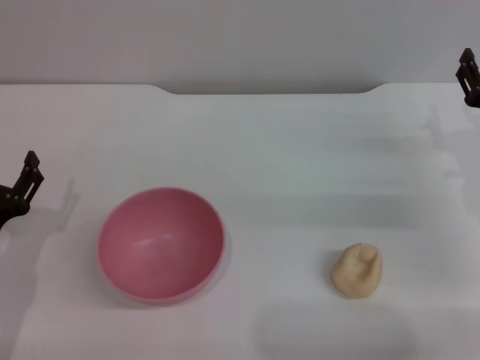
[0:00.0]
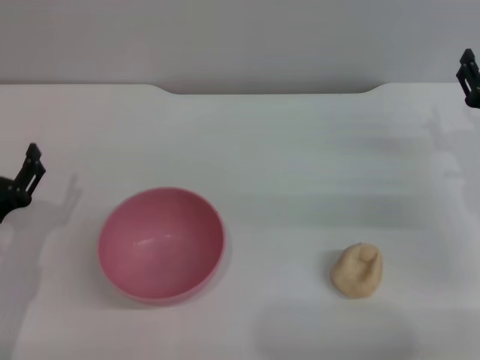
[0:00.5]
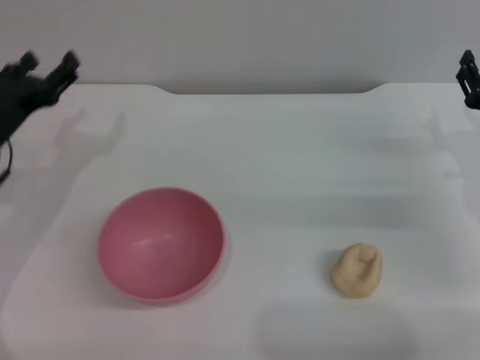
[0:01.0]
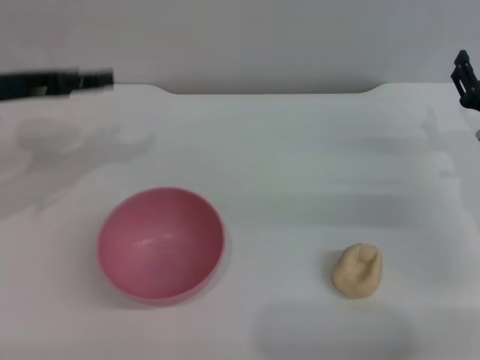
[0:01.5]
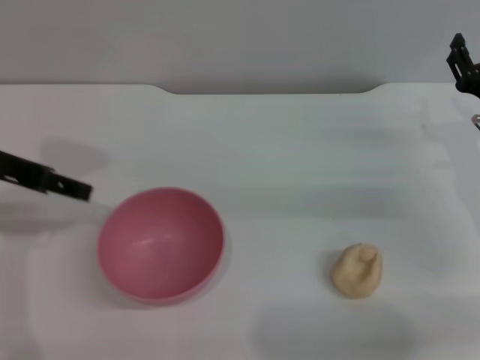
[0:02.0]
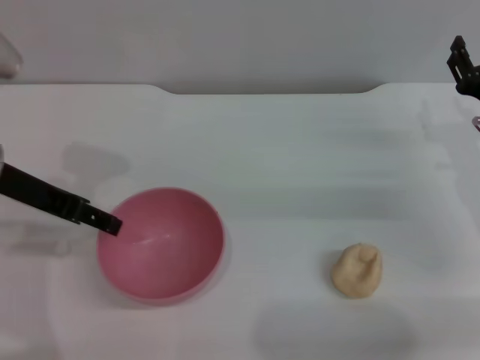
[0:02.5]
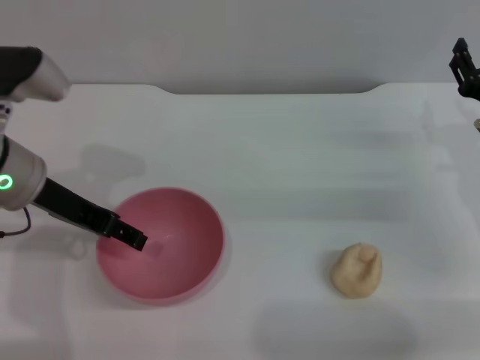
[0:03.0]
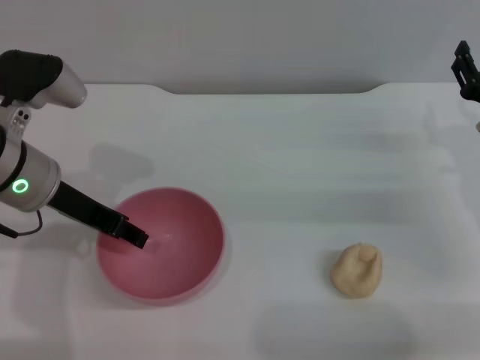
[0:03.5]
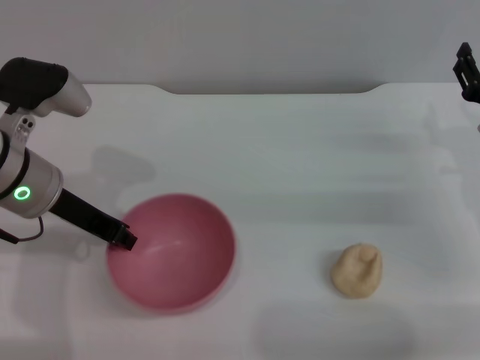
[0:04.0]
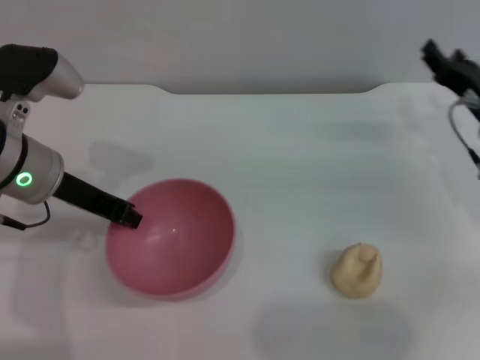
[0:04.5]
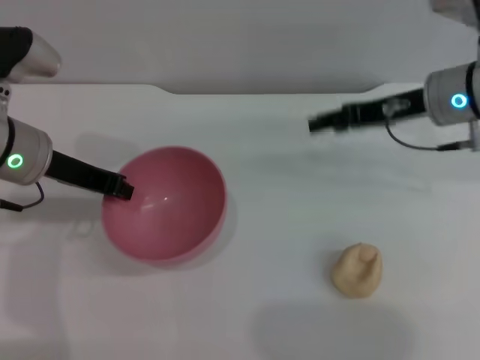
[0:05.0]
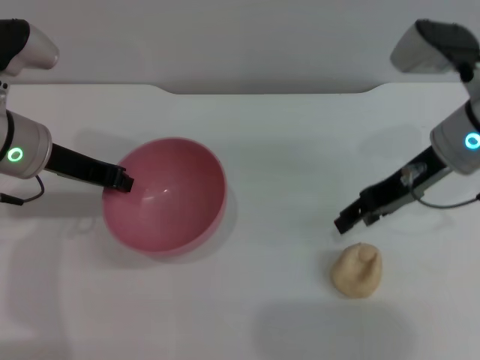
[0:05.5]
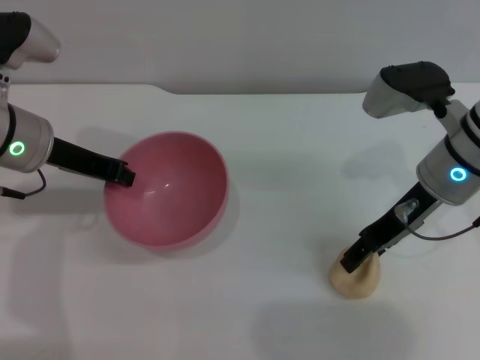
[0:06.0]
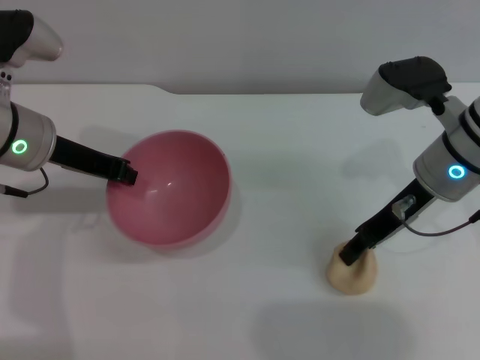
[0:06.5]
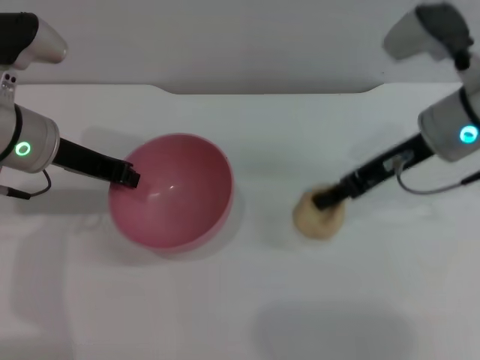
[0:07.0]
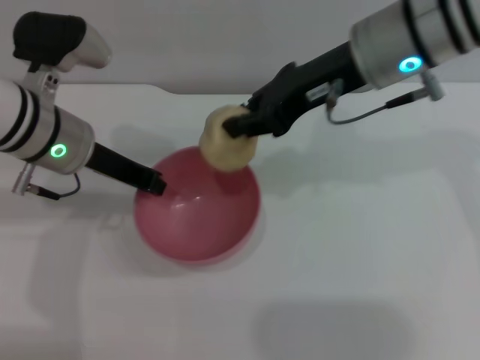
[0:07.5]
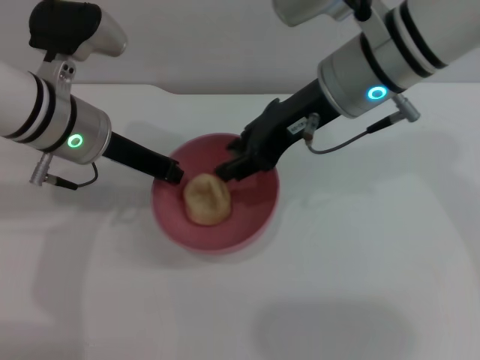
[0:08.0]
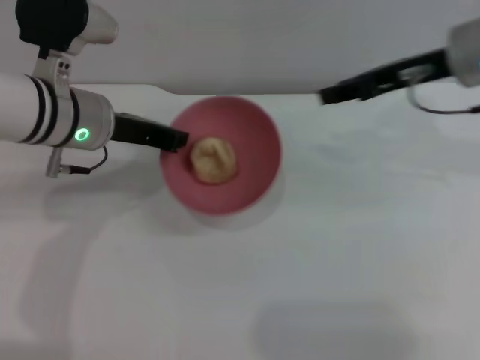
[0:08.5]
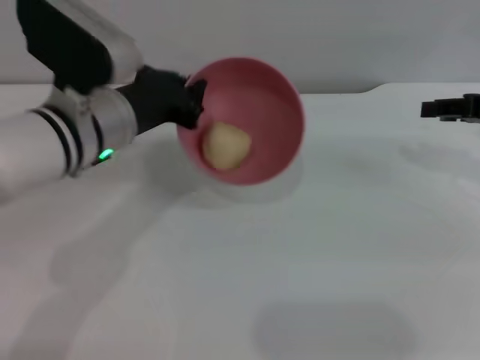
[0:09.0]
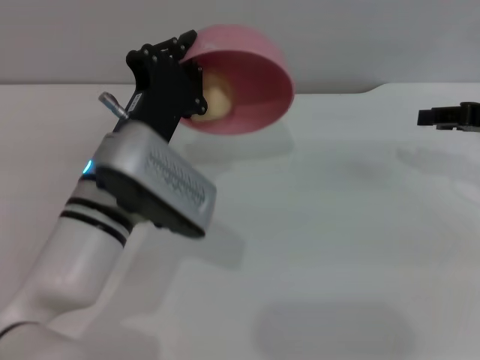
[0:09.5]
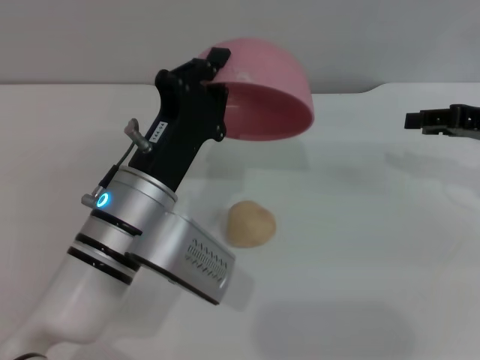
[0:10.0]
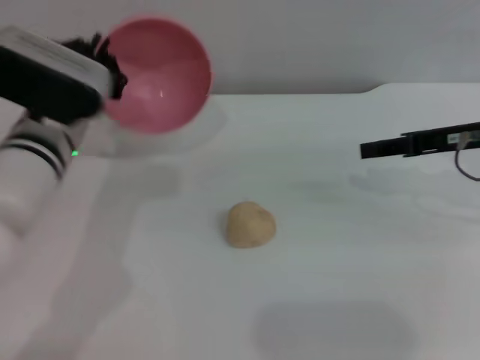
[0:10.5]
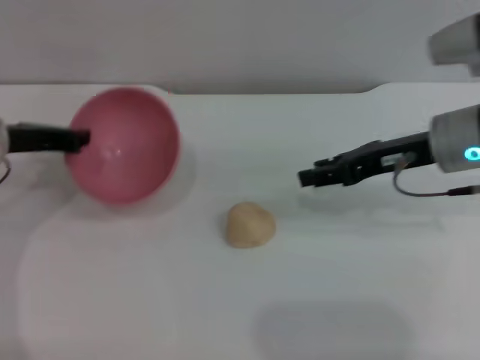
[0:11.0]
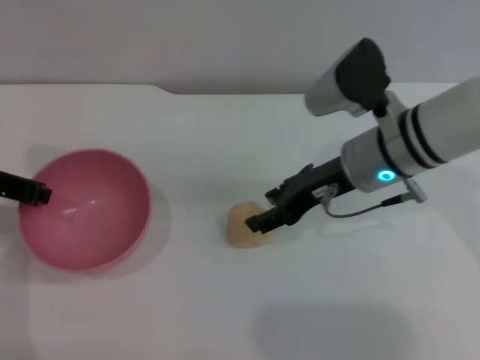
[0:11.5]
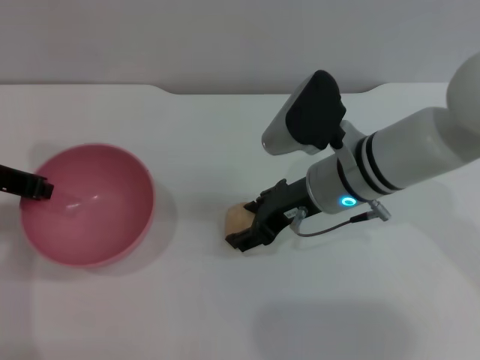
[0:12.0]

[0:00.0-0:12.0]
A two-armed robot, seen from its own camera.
Task of the whole recording: put the egg yolk pastry into the pink bowl and pour it out repeatedly.
Step, 0:00.0 to 0:05.0: Pick up the bowl with the left gripper.
Step, 0:05.5 to 0:07.0: Pick up the egg yolk pastry with the right gripper.
Step, 0:07.5 to 0:08.0: Place the egg yolk pastry into the bowl.
Step, 0:08.5 to 0:09.5: Pour the egg yolk pastry out of bowl.
0:00.0 to 0:02.0: The left gripper travels upward and forward by about 20 cm.
0:02.0 to 0:04.0: The left gripper heads downward and to the right, covering roughly 10 cm, and closes up.
0:04.0 to 0:06.0: The right gripper goes roughly 10 cm to the left and upward. Meanwhile the left gripper closes up.
0:06.0 to 0:08.0: The left gripper moves to the right, roughly 5 cm. Meanwhile the right gripper moves to the left and upward, about 15 cm, and closes its fingers.
0:08.0 to 0:10.0: The right gripper heads to the right, covering roughly 20 cm. The left gripper heads backward, downward and to the right, covering some 15 cm.
0:10.0 to 0:12.0: The right gripper goes about 20 cm to the left, and opens up, while the left gripper moves to the left and upward, roughly 20 cm.

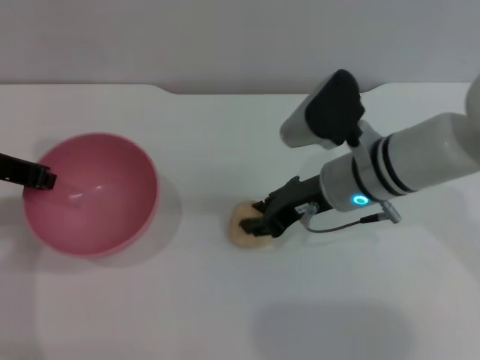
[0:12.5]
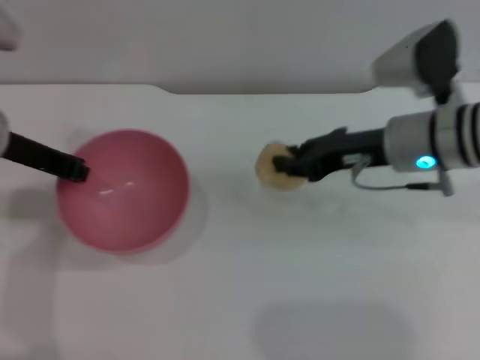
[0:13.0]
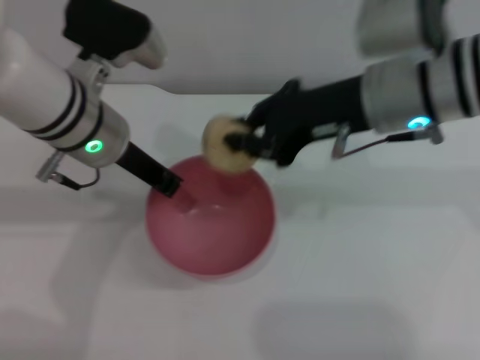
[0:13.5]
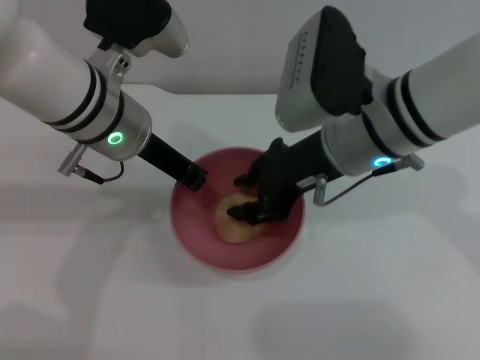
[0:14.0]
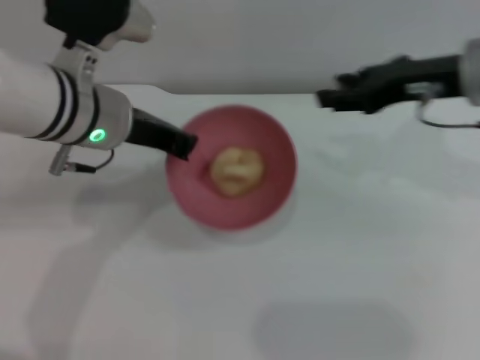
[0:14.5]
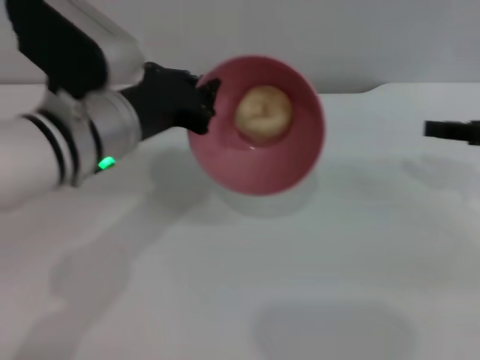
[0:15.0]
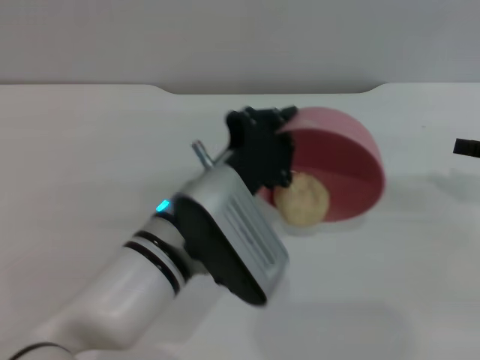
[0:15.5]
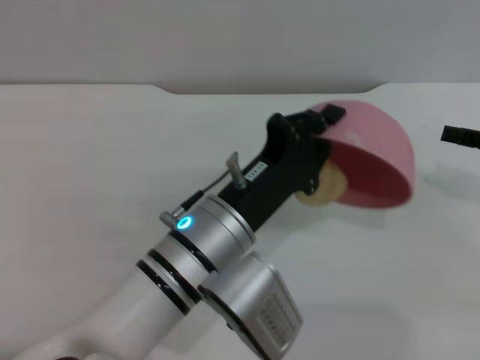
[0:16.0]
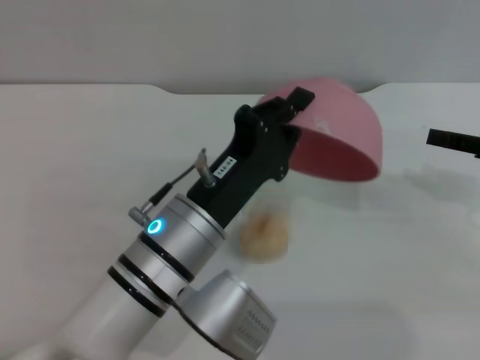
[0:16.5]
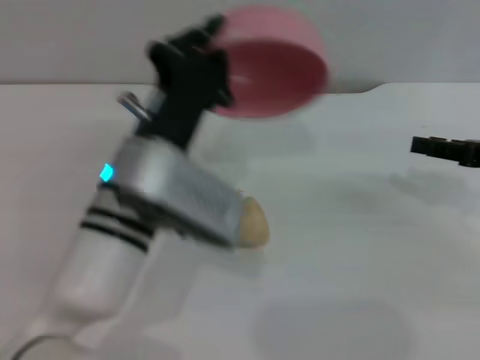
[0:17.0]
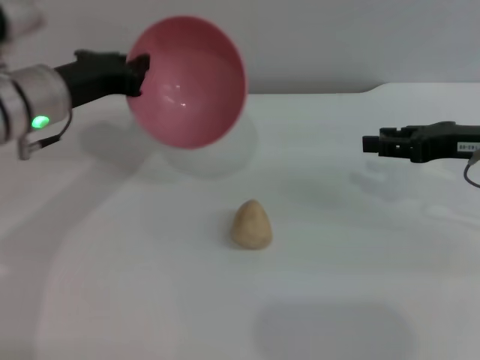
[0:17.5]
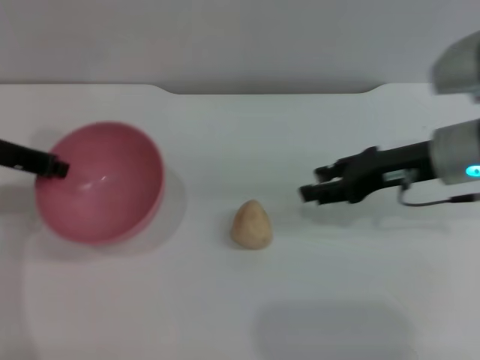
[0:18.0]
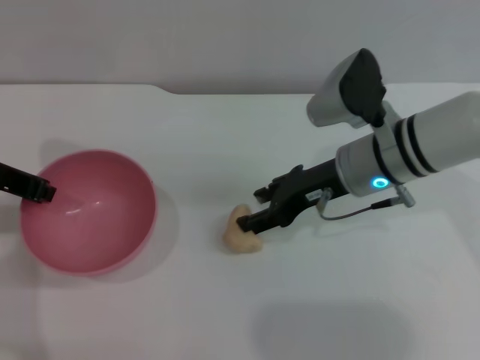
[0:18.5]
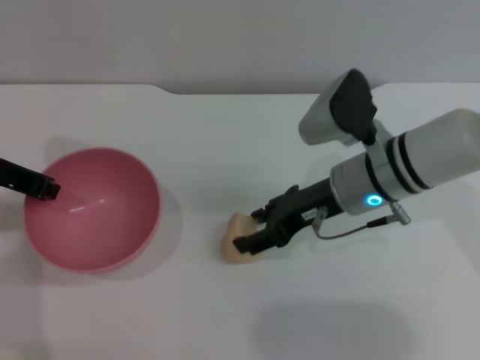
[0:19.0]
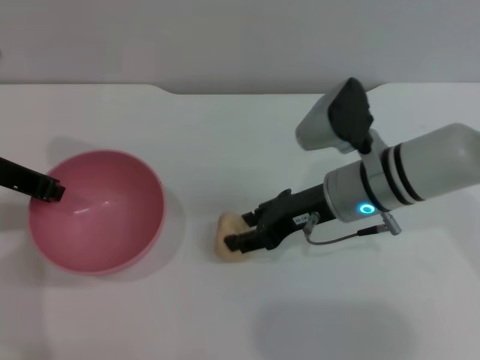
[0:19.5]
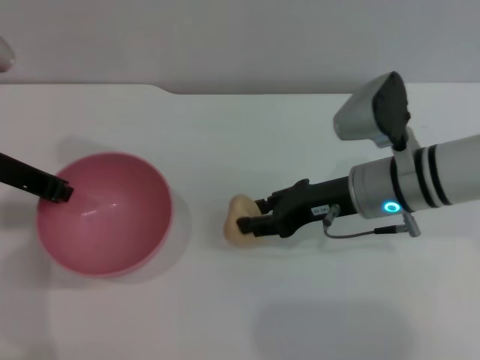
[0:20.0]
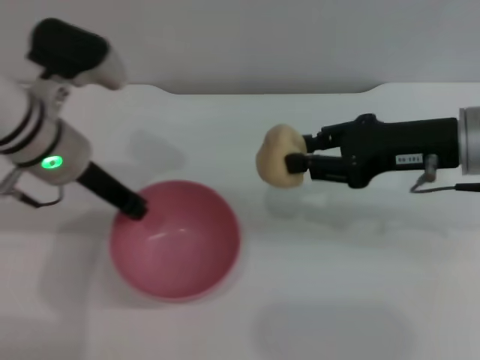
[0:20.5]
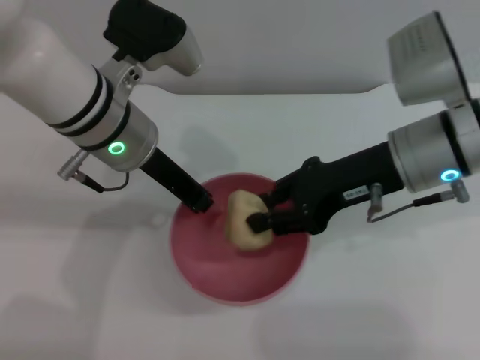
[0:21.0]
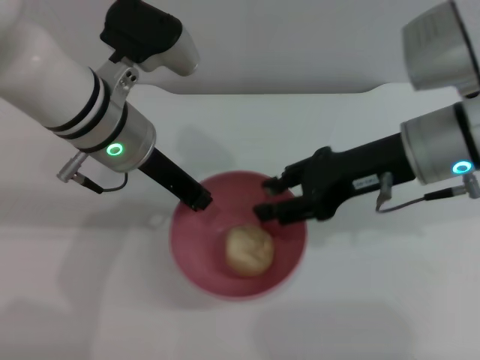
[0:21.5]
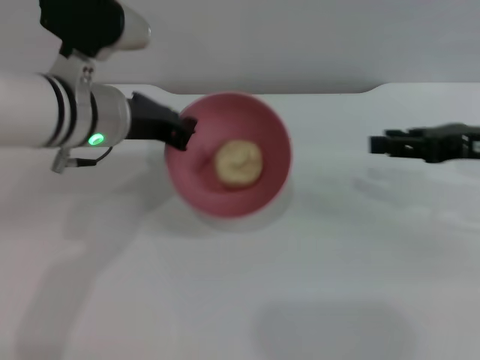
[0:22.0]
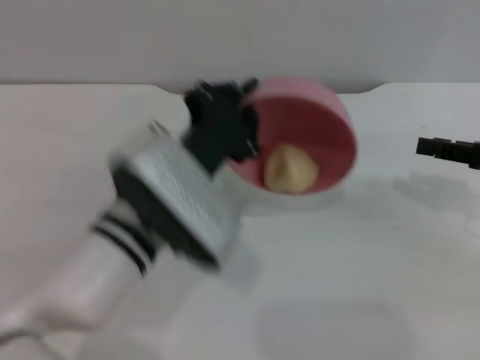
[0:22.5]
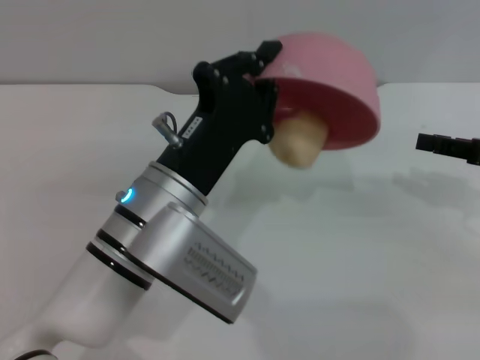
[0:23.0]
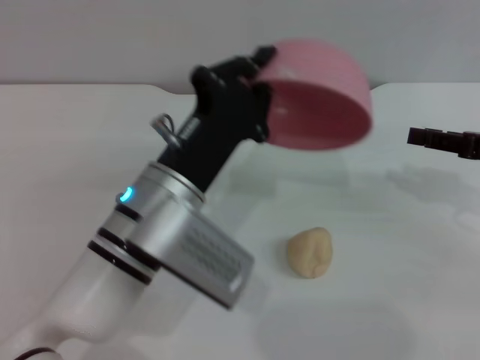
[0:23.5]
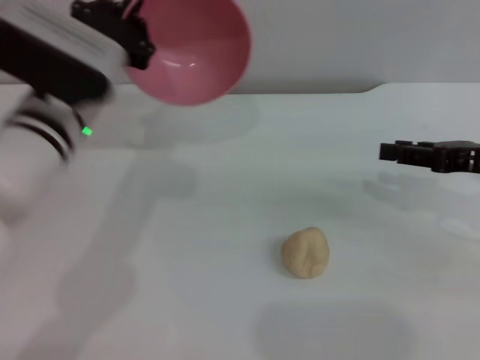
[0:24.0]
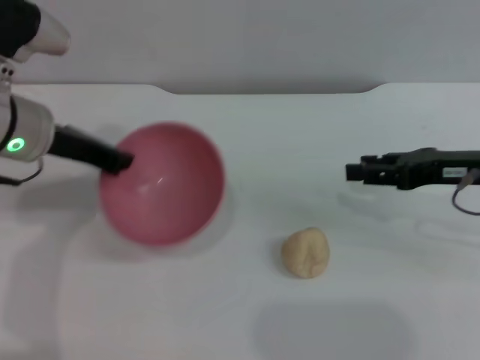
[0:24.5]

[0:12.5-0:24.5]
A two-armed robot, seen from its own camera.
Task of the whole recording: put the egg yolk pastry into the pink bowl and pour it out repeatedly.
Step, 0:13.5 to 0:14.0: Place the egg yolk pastry into the bowl.
Step, 0:14.5 to 0:16.5: Pour the egg yolk pastry out of bowl.
Step, 0:17.0 to 0:20.0: Pick up the egg yolk pastry with the right gripper.
Step, 0:20.5 to 0:21.5: Place the egg yolk pastry into the bowl.
Step, 0:22.0 to 0:23.0: Pour the egg yolk pastry out of bowl.
0:12.5 to 0:14.5: The left gripper shifts some 15 cm to the right, while the right gripper moves left and right over some 10 cm, changing direction 2 times, and closes, then opens again.
0:14.5 to 0:16.5: The right gripper heads to the right, downward and backward, covering roughly 15 cm. Meanwhile the left gripper goes some 15 cm backward, downward and to the right.
0:16.5 to 0:18.5: The right gripper goes approximately 20 cm to the left. The left gripper moves to the left, upward and forward, approximately 25 cm.
0:18.5 to 0:20.5: The left gripper goes about 10 cm to the right. Meanwhile the right gripper moves to the right and upward, approximately 10 cm, and closes its fingers.
0:20.5 to 0:22.5: The left gripper goes about 15 cm to the right, backward and downward, while the right gripper moves to the right, roughly 10 cm.
0:22.5 to 0:24.5: The left gripper moves to the left, forward and upward, approximately 15 cm. The right gripper shifts some 5 cm to the left.

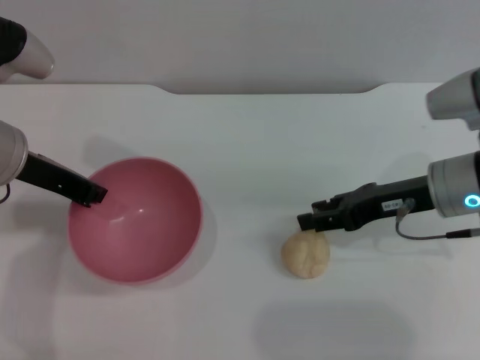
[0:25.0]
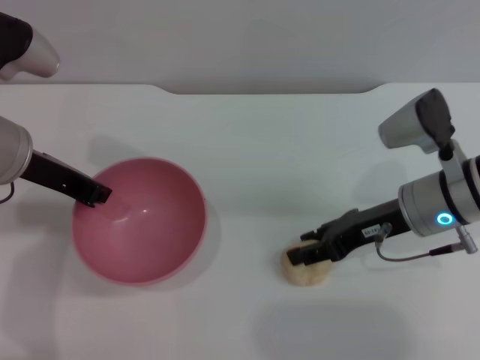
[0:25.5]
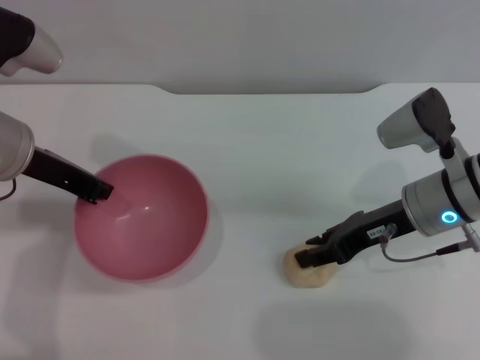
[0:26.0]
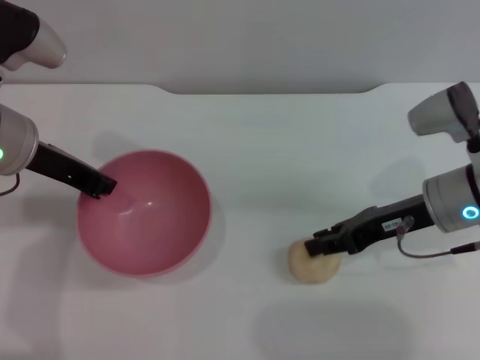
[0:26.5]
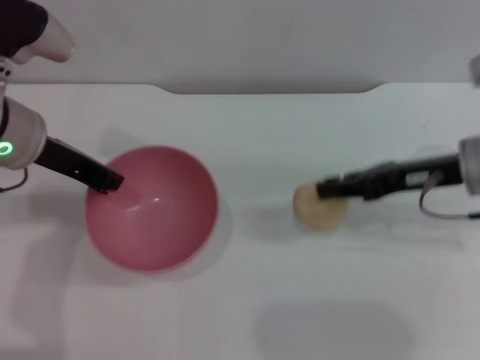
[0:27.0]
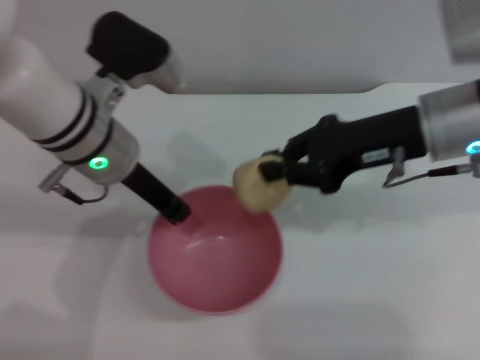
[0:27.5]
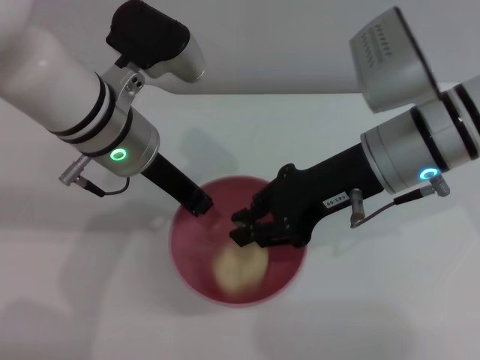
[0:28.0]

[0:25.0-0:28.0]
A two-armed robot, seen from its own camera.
Task of the whole recording: put the egg yolk pastry into the pink bowl and pour it out repeatedly.
Step, 0:25.0 to 0:27.0: Pick up the egg yolk pastry with the right gripper.
0:25.0 to 0:26.5: The right gripper closes its fingers.
0:26.5 to 0:28.0: The left gripper is displaced to the right by some 10 cm. The right gripper travels upward and to the left by about 10 cm.
